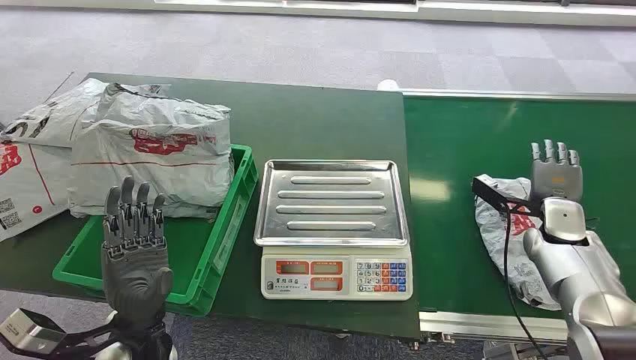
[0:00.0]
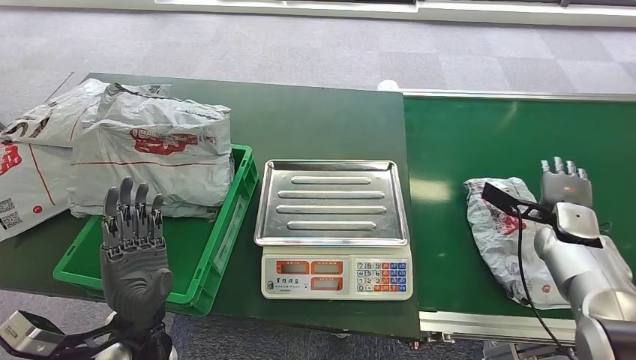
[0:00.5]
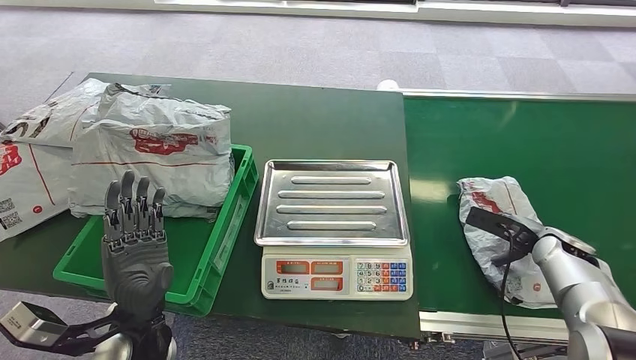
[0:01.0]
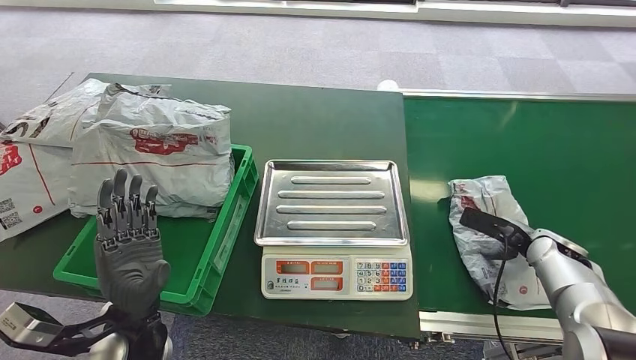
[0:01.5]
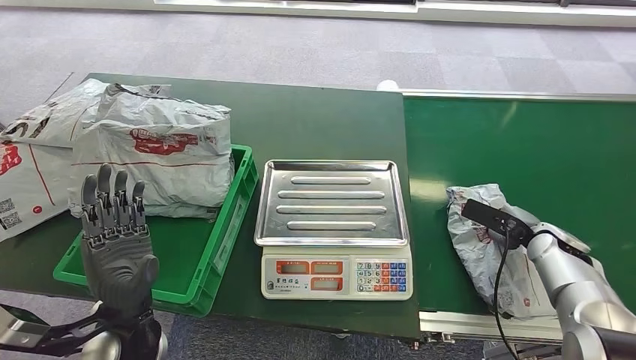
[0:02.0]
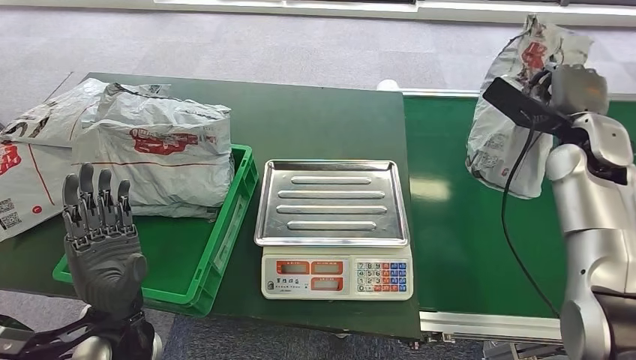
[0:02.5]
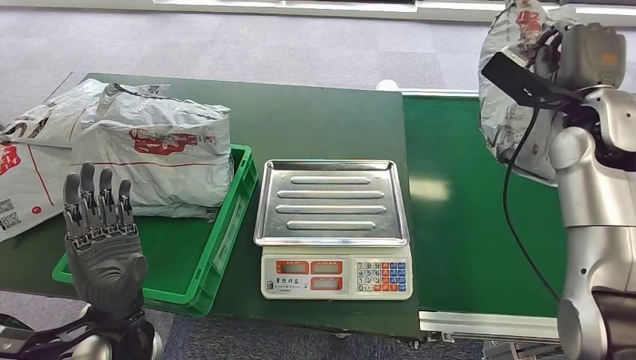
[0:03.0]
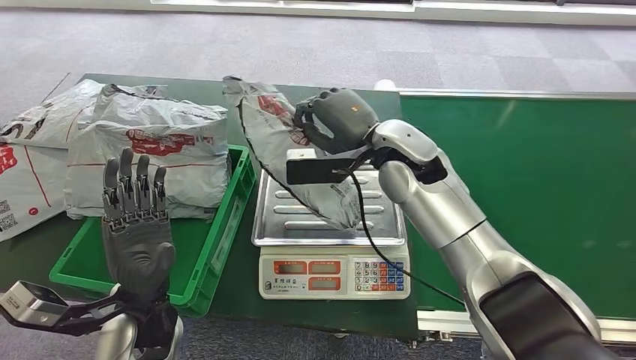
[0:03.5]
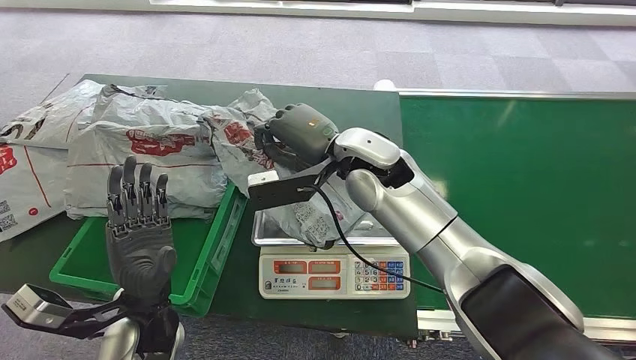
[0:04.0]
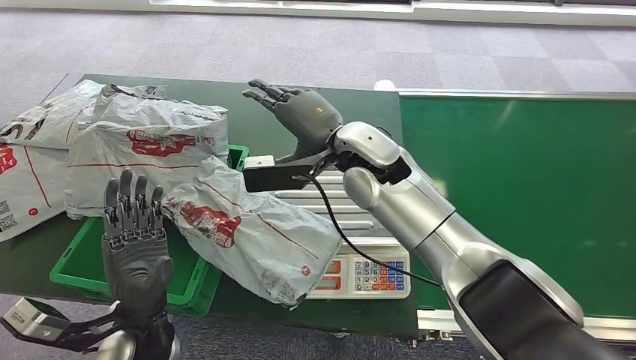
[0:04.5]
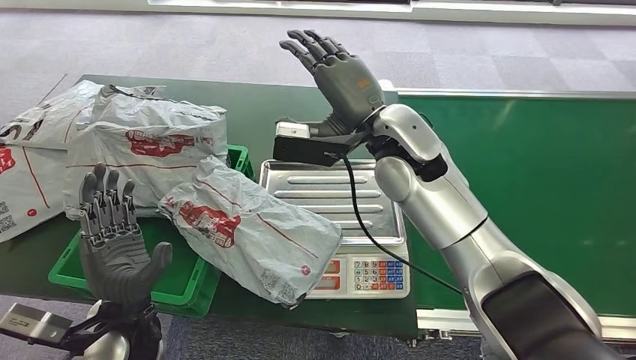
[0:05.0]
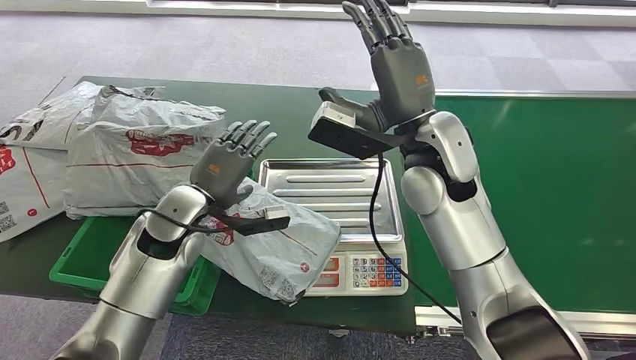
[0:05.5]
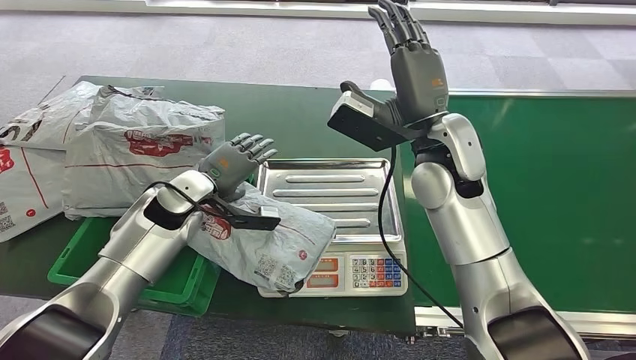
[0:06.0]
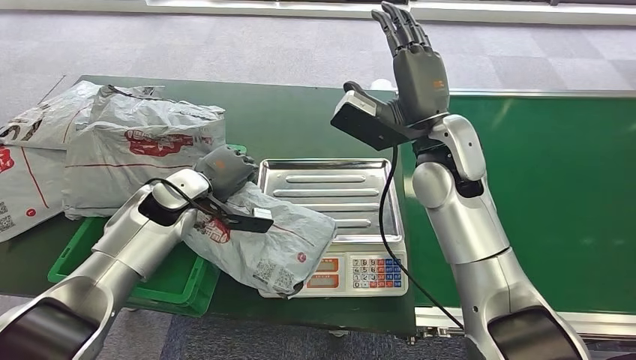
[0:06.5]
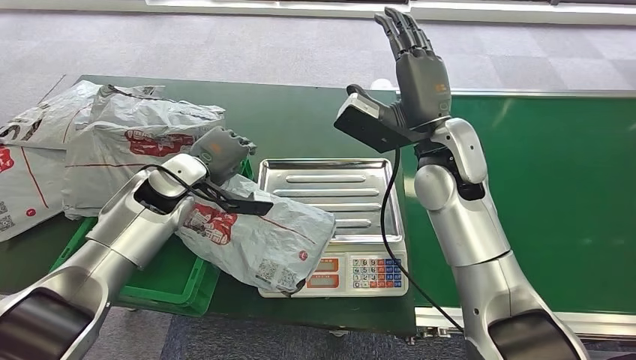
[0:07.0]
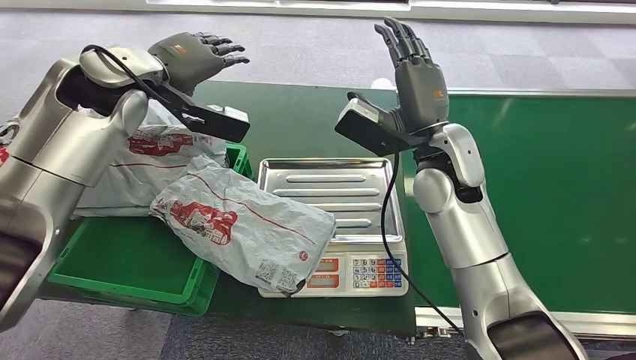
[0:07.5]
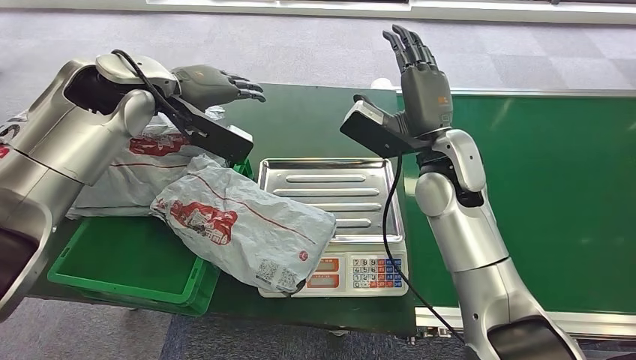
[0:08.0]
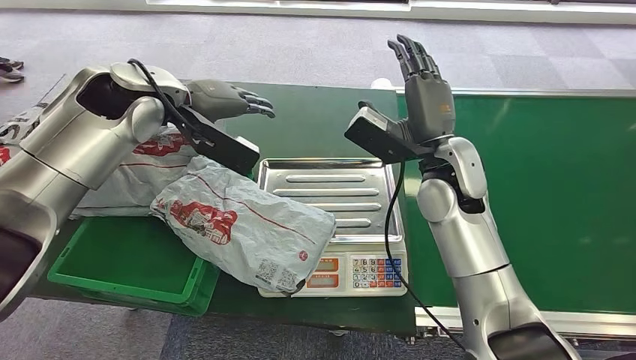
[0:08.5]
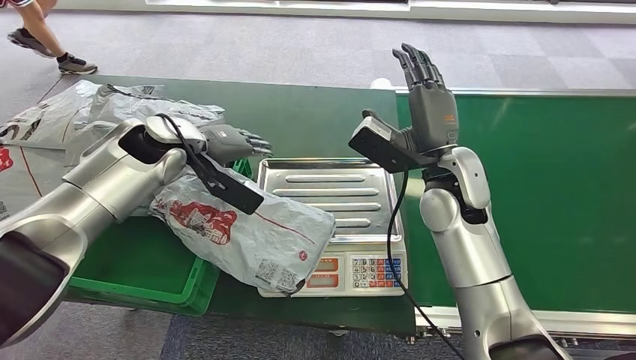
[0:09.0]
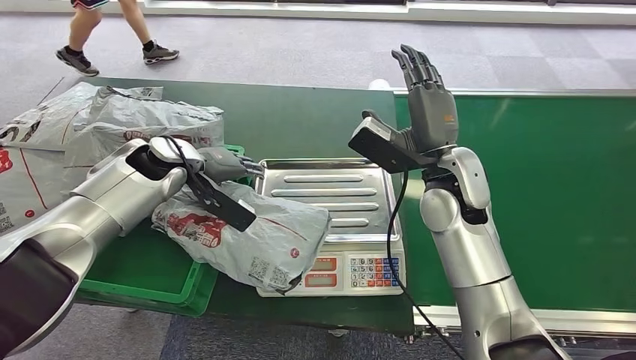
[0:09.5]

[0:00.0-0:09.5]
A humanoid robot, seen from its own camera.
Step, 0:00.0 to 0:02.5: Pick up the package from the conveyor belt.
Step, 0:03.0 to 0:05.0: Place the package onto the inbound machine.

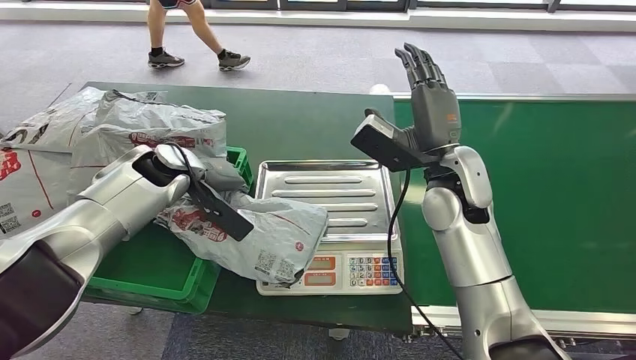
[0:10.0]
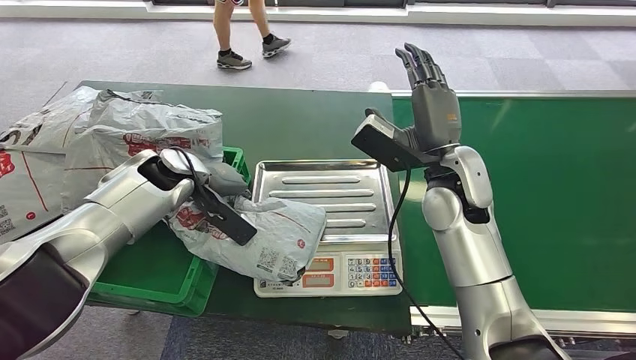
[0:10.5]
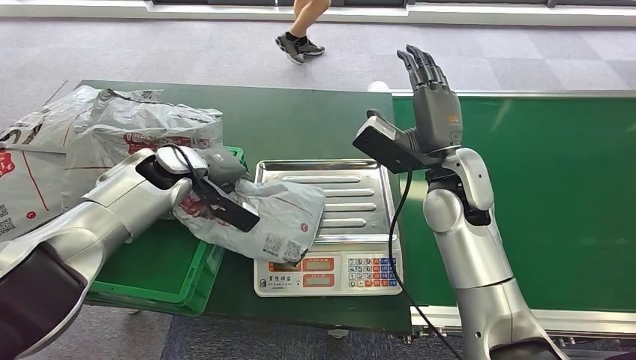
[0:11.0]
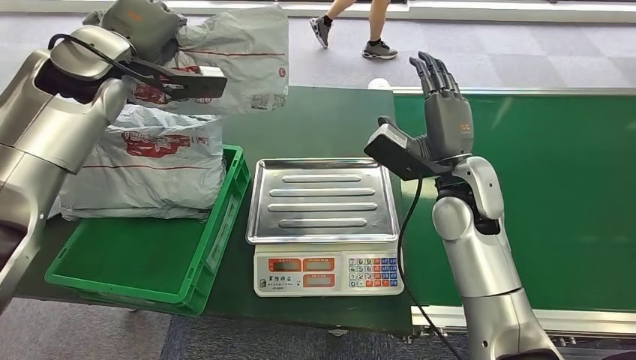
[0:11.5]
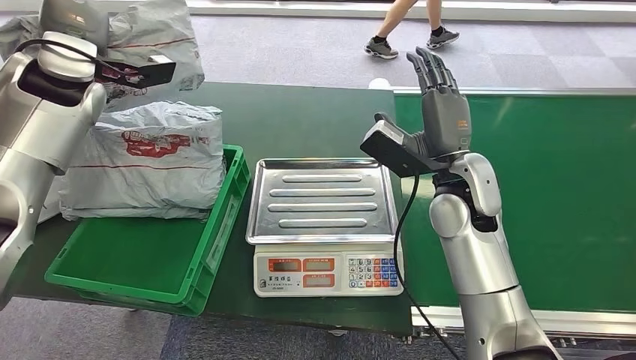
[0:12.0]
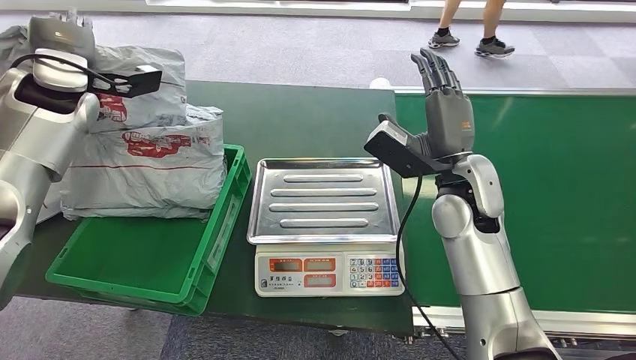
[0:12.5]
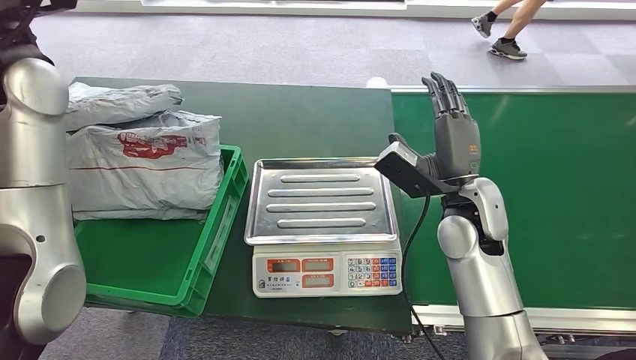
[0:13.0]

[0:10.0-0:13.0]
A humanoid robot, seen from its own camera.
Step, 0:11.5 to 0:13.0: Place the package into the parcel locker.
